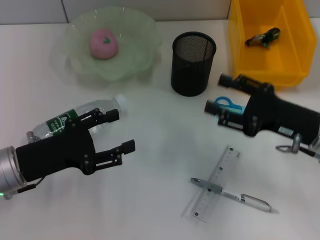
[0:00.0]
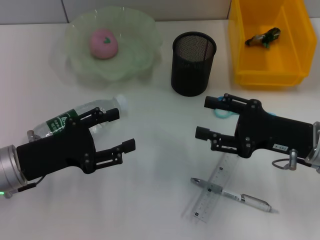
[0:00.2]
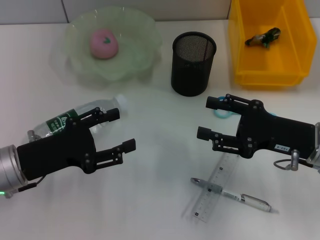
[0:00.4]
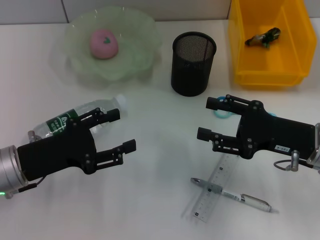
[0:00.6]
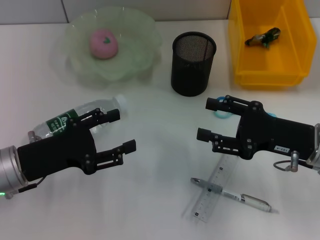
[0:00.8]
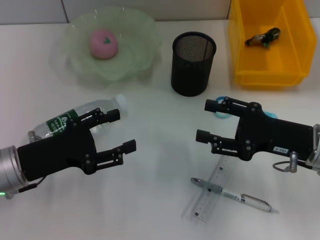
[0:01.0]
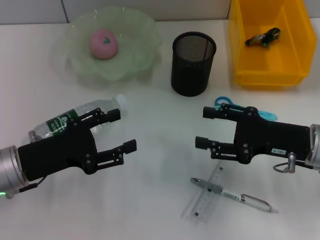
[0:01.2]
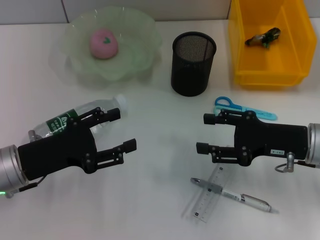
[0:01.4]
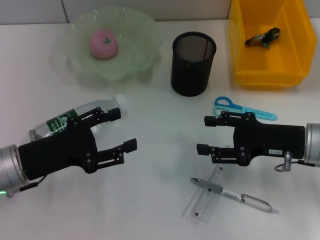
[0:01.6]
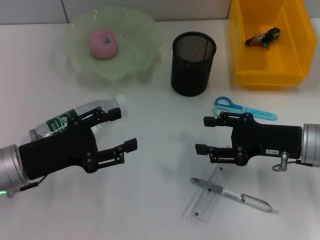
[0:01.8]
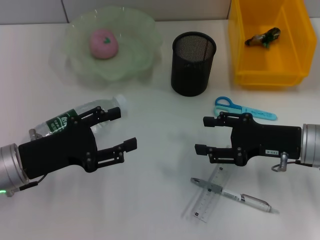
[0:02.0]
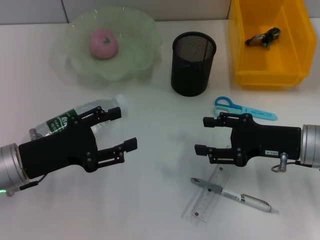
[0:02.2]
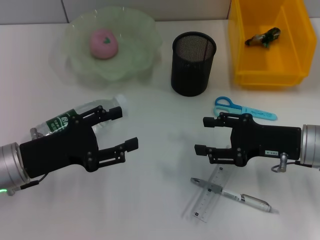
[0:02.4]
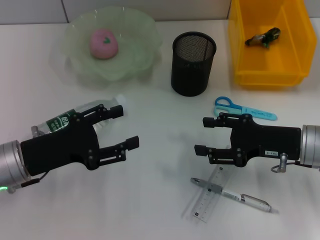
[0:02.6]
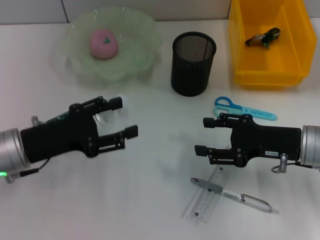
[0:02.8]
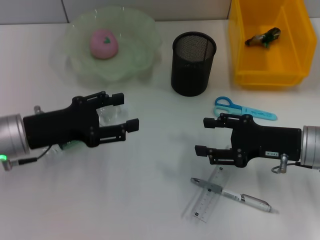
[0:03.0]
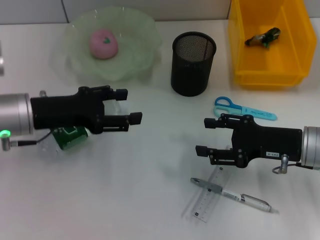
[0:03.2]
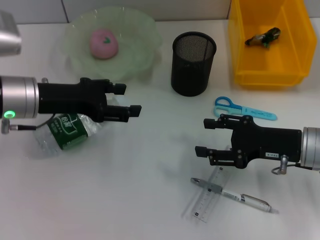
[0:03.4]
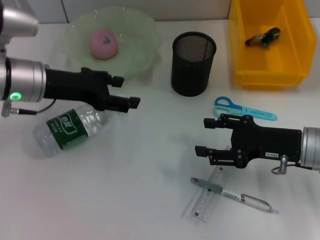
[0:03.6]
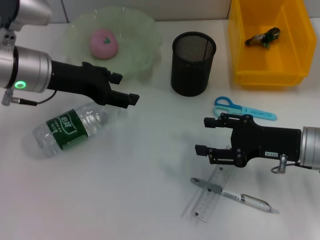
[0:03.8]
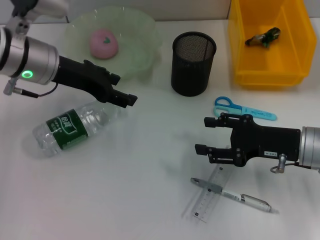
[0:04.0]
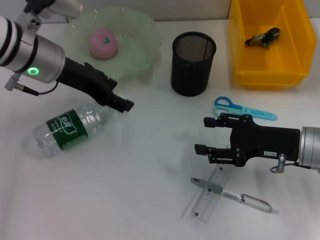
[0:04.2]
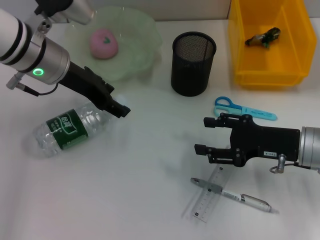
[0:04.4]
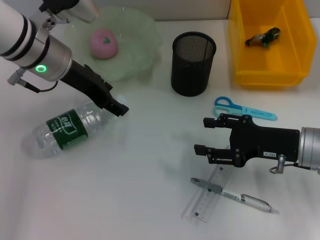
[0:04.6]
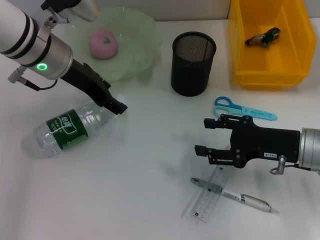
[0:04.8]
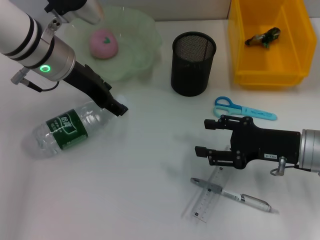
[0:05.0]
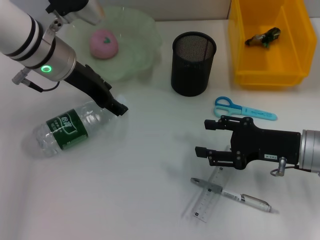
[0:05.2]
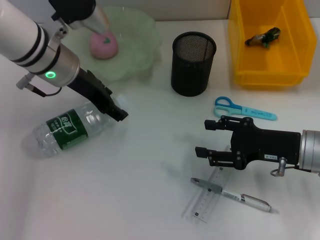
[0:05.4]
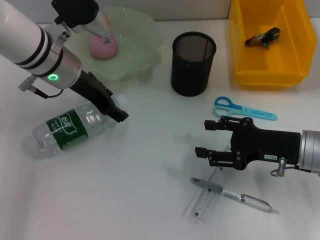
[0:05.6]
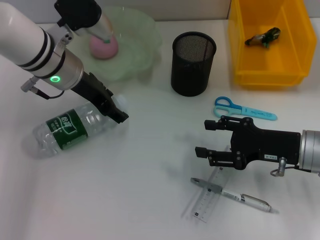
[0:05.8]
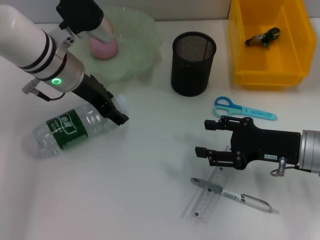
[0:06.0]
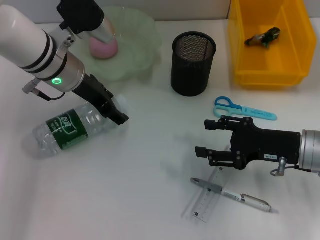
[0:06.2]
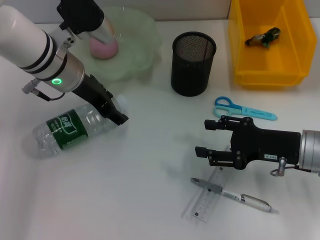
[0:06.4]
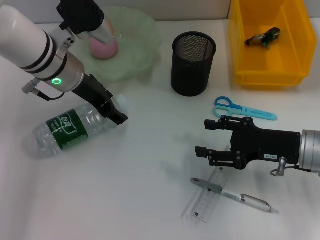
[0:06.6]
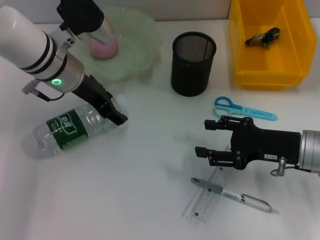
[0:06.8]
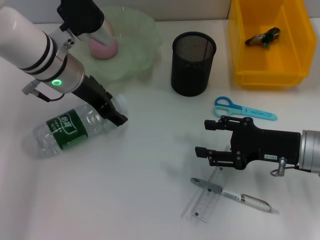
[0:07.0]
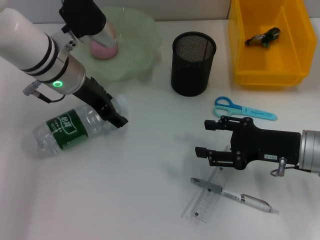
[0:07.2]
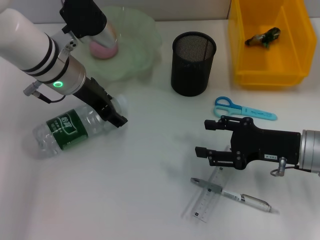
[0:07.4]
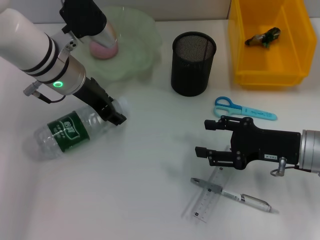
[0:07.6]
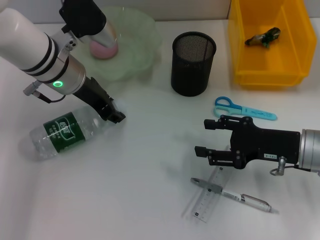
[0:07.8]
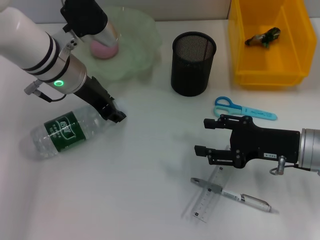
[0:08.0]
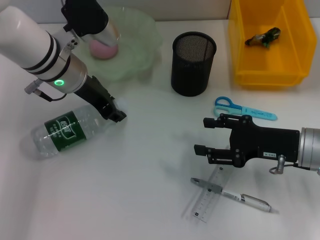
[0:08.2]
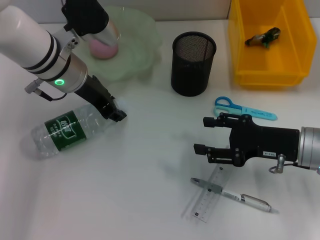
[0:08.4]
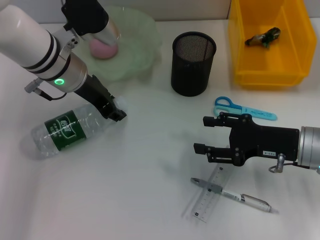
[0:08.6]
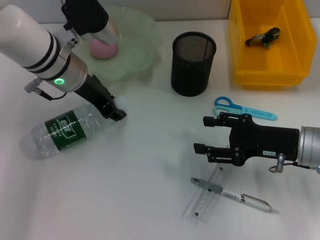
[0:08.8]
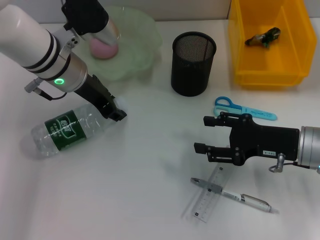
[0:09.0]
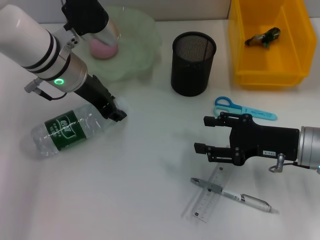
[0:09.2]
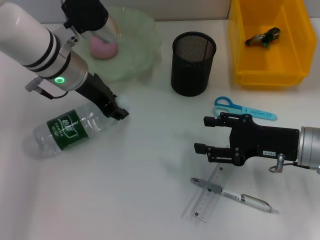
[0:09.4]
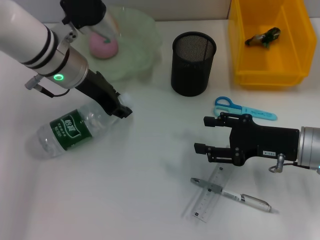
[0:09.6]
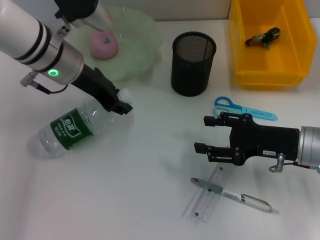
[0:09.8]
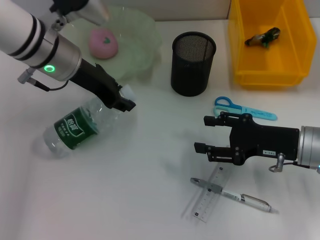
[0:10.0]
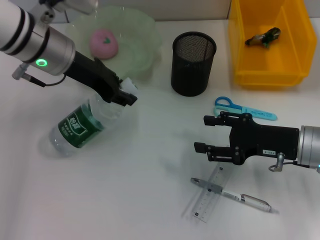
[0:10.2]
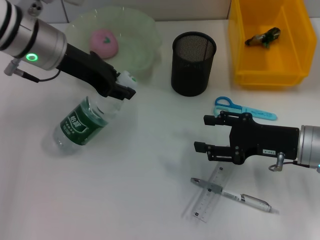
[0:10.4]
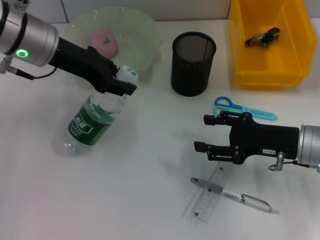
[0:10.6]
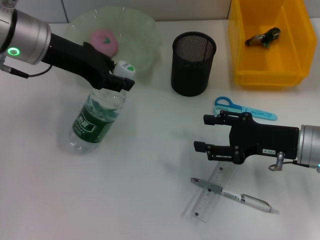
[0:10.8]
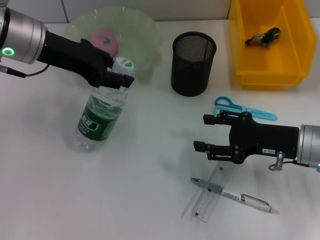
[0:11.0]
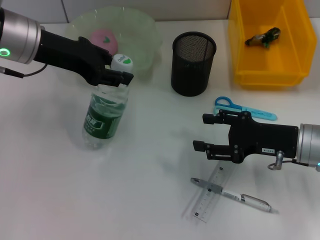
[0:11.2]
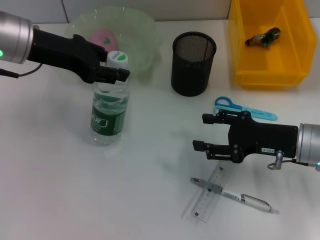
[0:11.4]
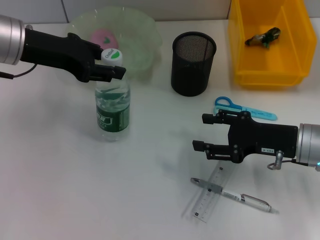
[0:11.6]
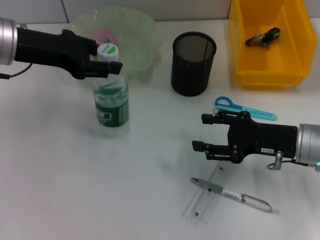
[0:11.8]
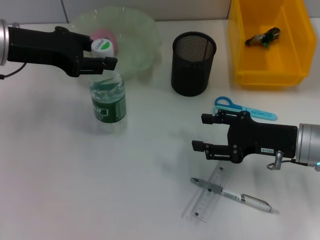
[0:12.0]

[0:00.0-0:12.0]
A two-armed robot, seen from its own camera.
Step, 0:00.0 to 0:09.4: Grab the water bottle with the left hand.
0:00.0 to 0:01.6: The grippers move only a little.
0:01.6 to 0:03.0: The left gripper shifts by some 5 cm.
0:03.0 to 0:04.4: The left gripper travels forward, upward and to the right by some 15 cm.
0:04.4 to 0:06.0: The grippers move only a little.
0:06.0 to 0:09.0: Both grippers stay about where they are.
0:09.0 to 0:10.4: The left gripper changes place by roughly 5 cm.
0:10.4 to 0:12.0: The left gripper shifts approximately 5 cm to the left.

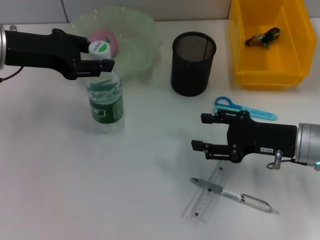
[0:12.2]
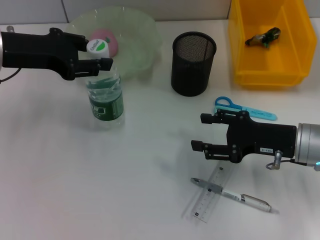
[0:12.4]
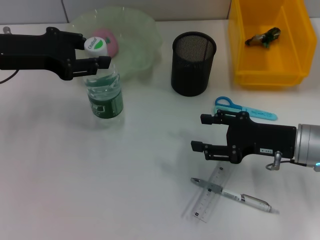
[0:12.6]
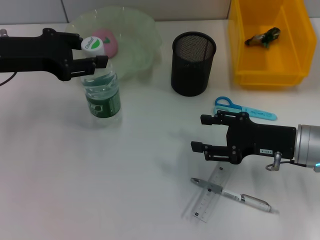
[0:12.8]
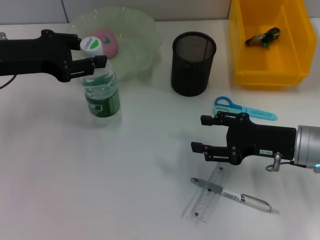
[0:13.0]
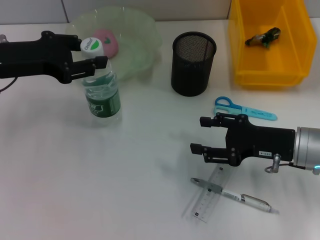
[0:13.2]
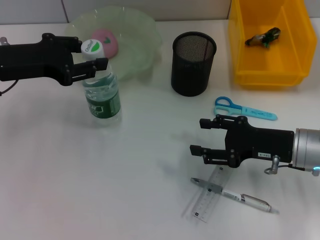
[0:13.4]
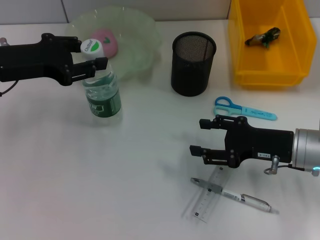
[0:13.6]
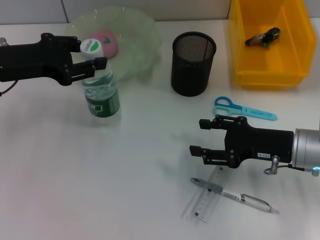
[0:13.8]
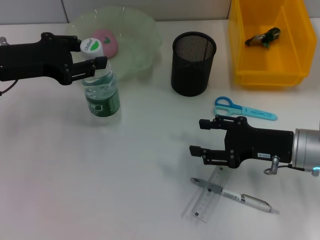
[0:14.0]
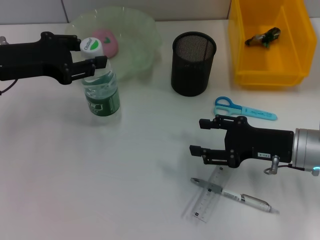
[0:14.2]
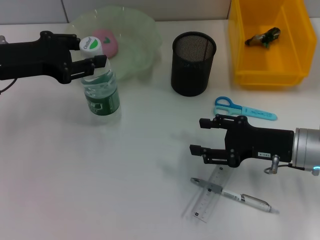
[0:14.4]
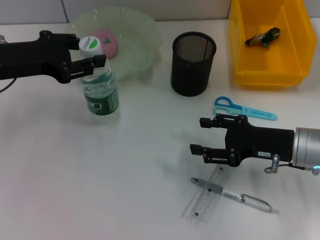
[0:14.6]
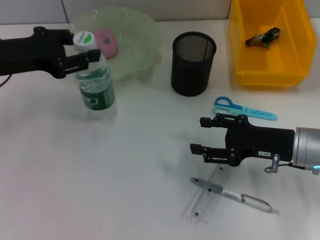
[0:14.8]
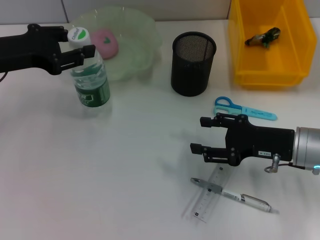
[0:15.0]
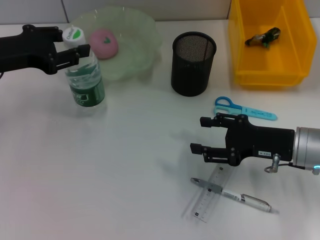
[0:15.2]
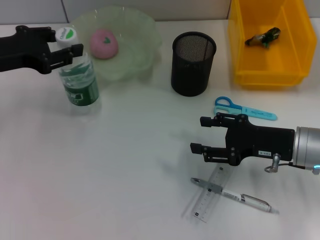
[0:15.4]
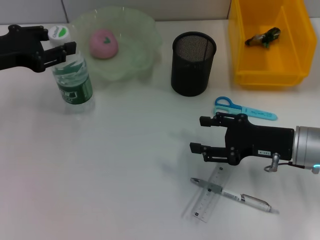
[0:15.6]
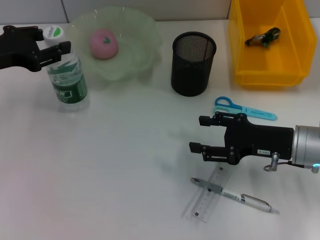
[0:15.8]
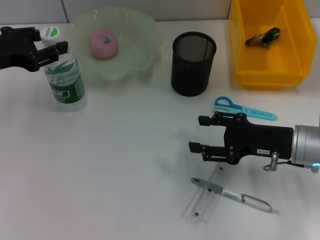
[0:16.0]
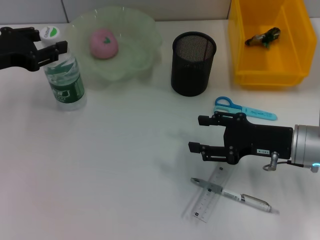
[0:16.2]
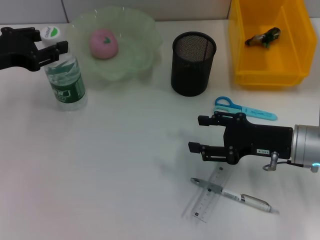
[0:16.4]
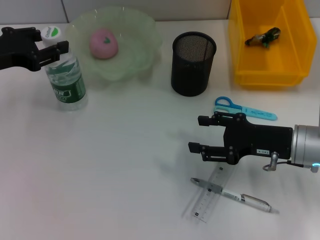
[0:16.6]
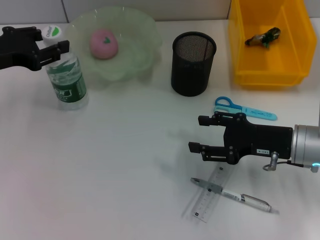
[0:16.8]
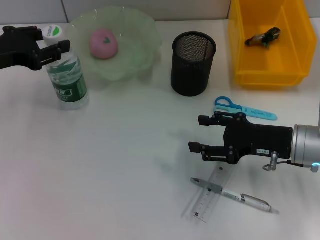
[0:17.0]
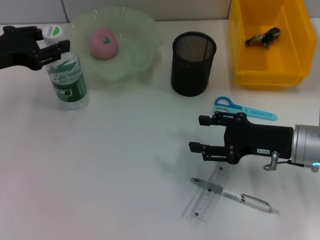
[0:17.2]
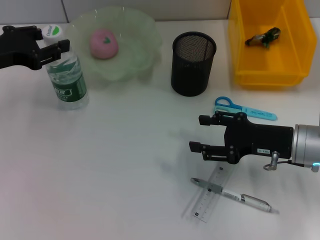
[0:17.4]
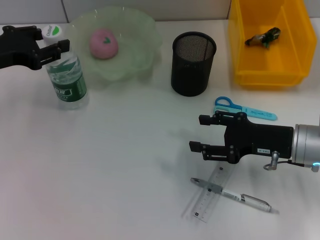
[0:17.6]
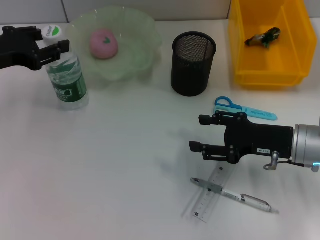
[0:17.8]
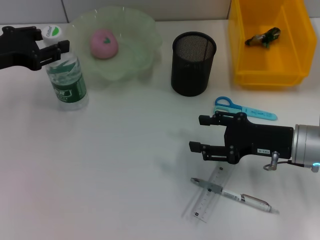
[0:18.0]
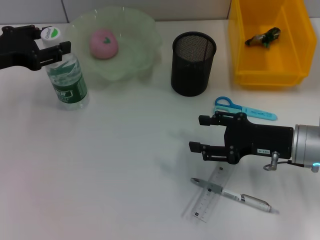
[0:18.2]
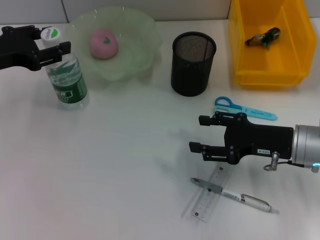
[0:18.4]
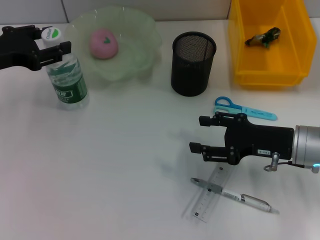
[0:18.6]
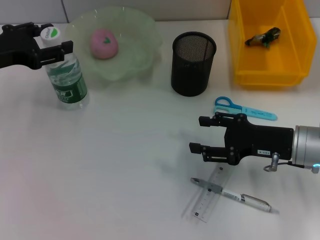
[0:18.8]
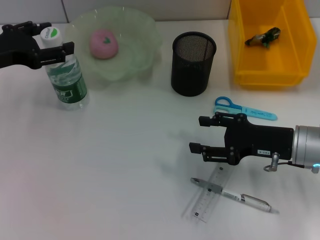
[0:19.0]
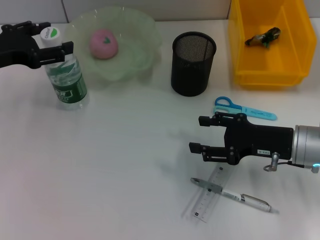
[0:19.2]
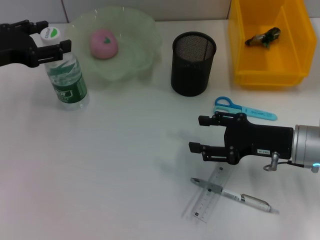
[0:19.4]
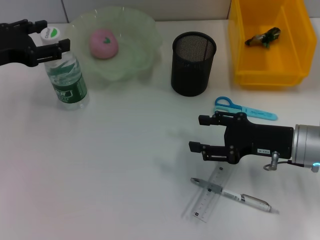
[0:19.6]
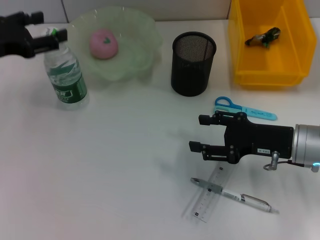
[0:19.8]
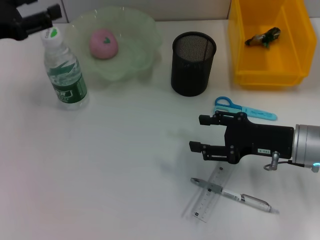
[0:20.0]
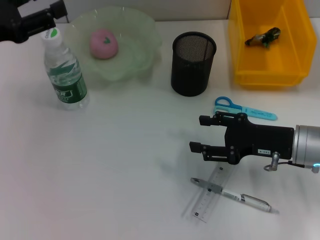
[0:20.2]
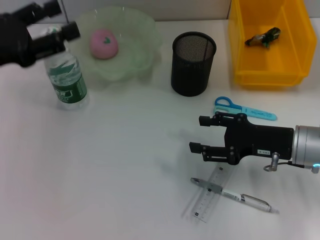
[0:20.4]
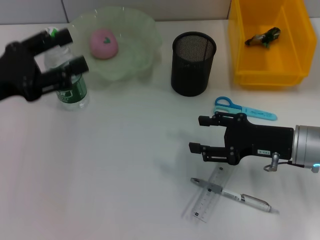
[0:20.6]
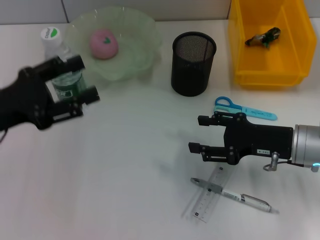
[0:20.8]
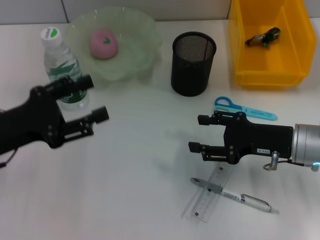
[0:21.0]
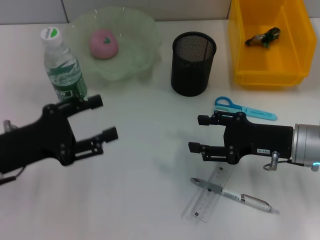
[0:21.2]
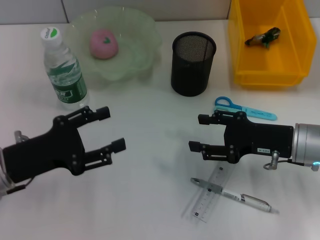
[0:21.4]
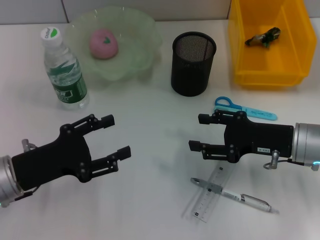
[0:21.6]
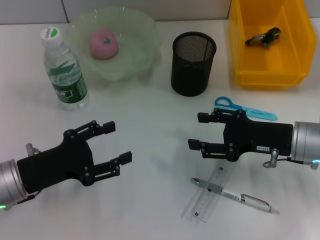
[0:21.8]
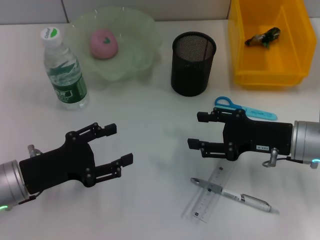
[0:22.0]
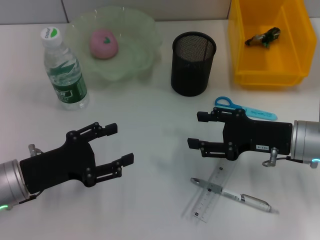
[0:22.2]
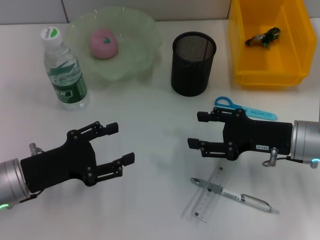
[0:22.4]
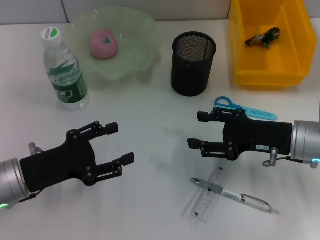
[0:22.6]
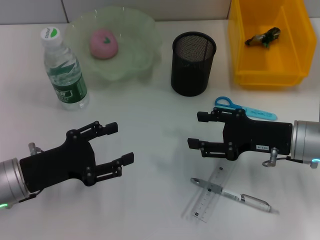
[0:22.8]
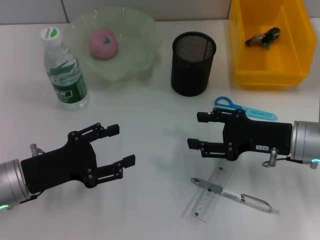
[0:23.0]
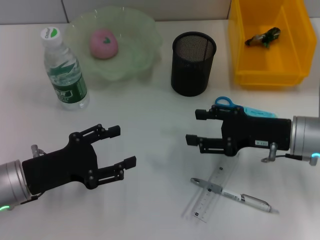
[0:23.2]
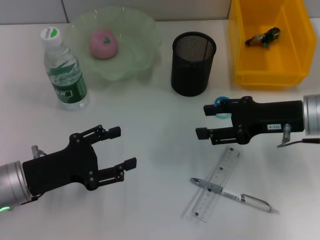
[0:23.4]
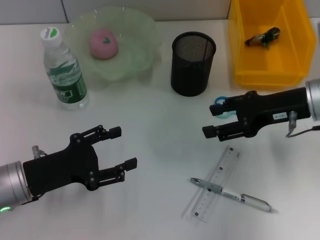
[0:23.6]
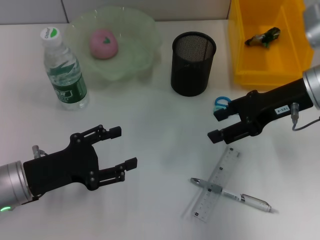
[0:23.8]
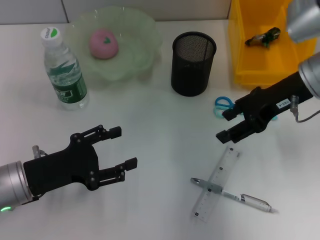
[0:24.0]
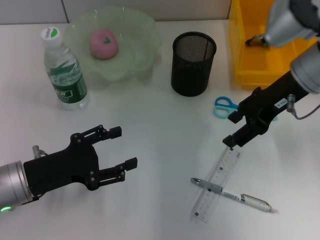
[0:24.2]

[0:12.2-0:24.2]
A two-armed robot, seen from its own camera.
Step, 0:12.2 to 0:18.8: Place the water bottle on the table with the left hand.
0:12.2 to 0:15.2: The grippers move only a little.
0:15.2 to 0:16.6: The grippers move only a little.
0:16.6 to 0:18.2: Both grippers stay put.
0:18.2 to 0:19.8: The left gripper opens up.
0:19.8 to 0:21.2: The left gripper shifts roughly 15 cm backward and downward.
0:21.2 to 0:22.6: The grippers move only a little.
0:22.6 to 0:24.2: The right gripper travels upward and forward by some 15 cm.
